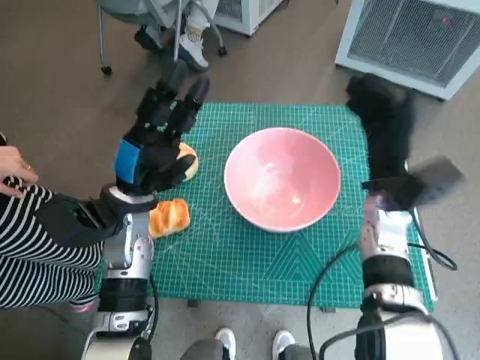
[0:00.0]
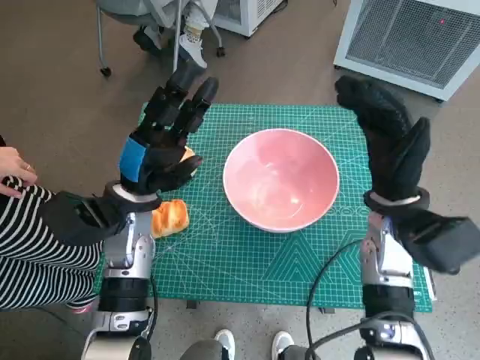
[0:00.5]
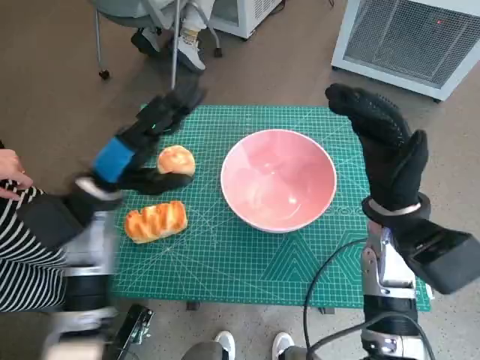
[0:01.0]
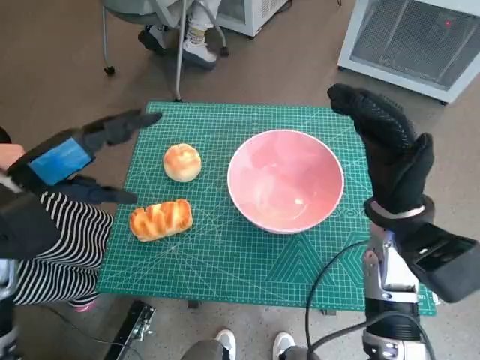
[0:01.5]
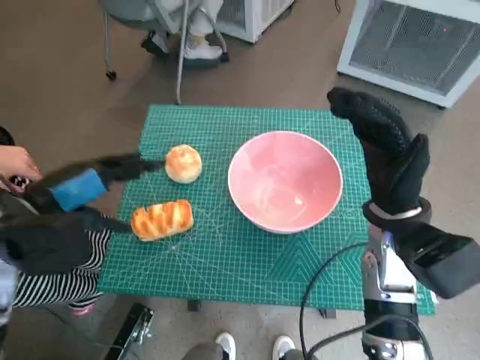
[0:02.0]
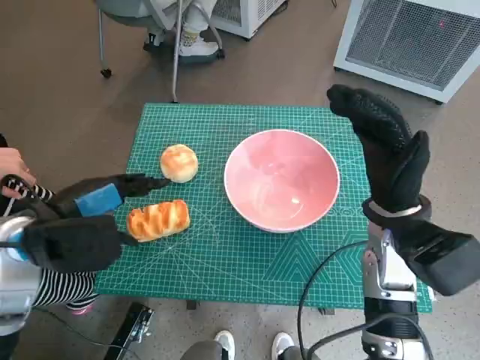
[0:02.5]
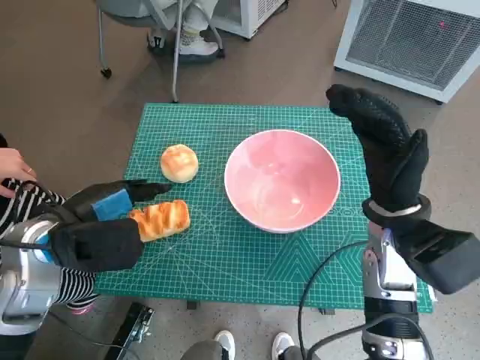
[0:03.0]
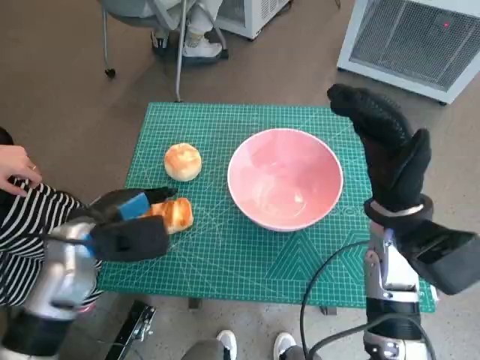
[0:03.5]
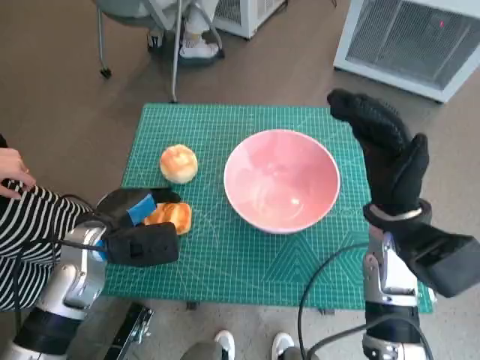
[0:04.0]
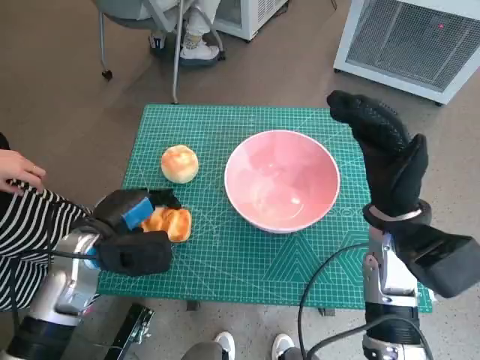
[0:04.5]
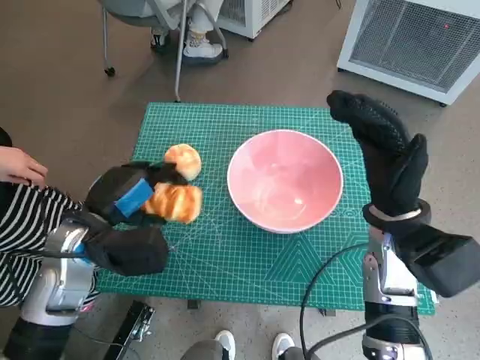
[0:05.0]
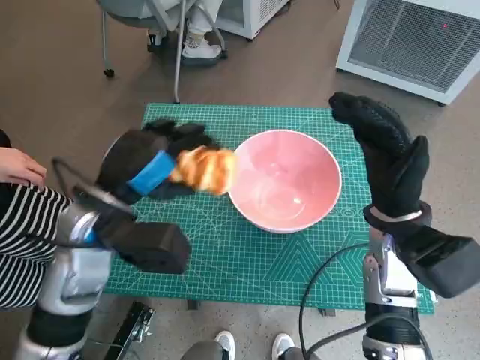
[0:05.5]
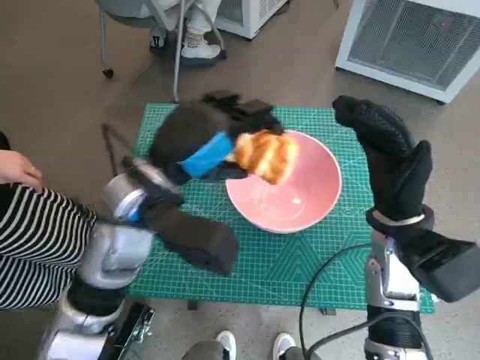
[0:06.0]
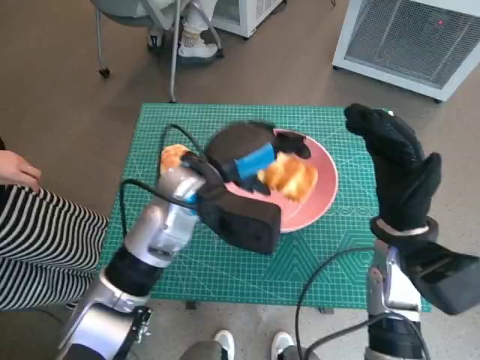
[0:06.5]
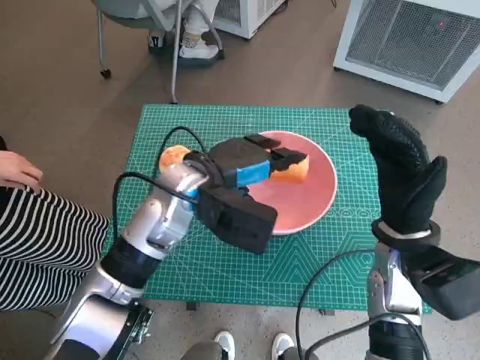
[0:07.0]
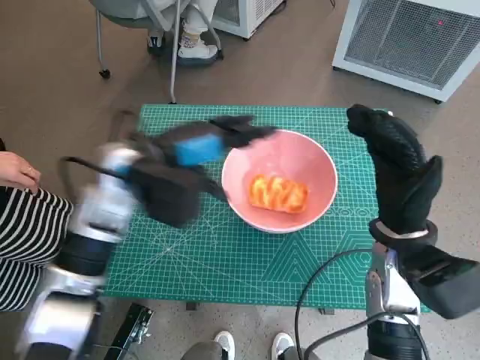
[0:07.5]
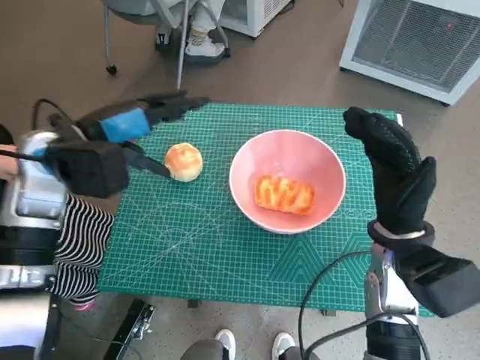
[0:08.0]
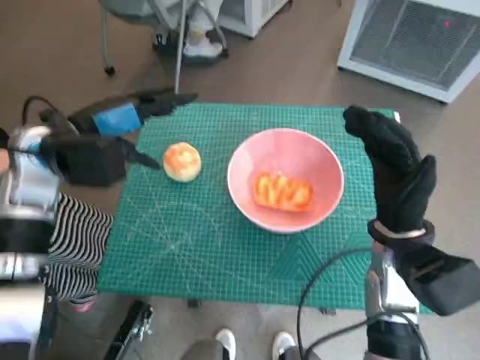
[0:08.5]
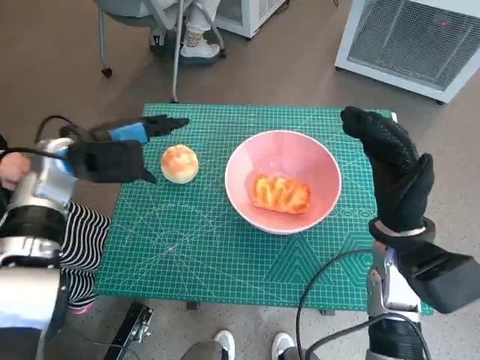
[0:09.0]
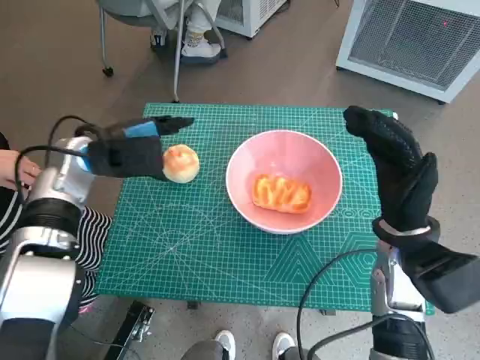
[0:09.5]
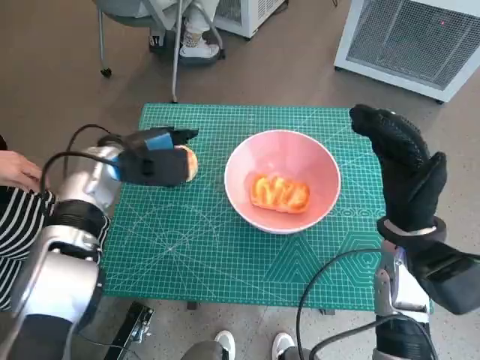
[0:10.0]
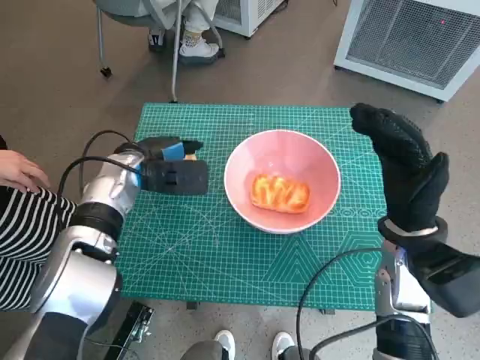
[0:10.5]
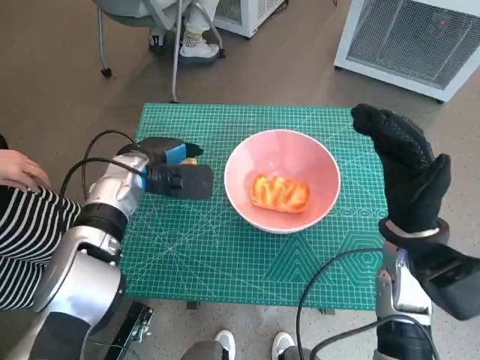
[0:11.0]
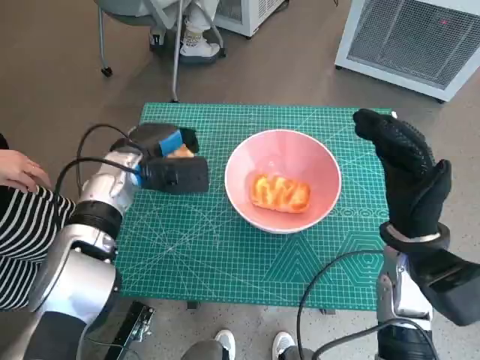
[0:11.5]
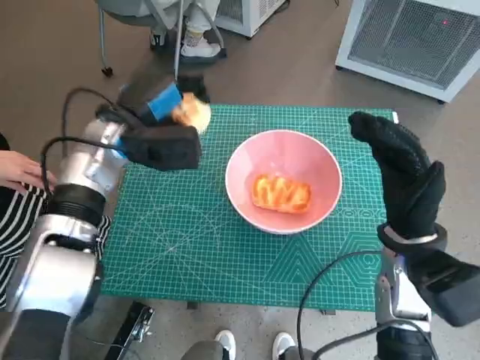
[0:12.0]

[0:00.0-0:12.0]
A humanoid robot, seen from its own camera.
Task of the whole recording: Push the bowl into the center of the table and put the bread into the bowl.
Step, 0:00.0 to 0:04.0: Grasp the long bread with left hand.
Step, 0:04.5 to 0:07.5: Place the long bread in pink bowl with left hand.
Step, 0:08.0 to 0:11.0: Grasp the round bread with left hand.
0:00.0 to 0:02.0: The left hand goes approximately 15 cm upward, to the left and backward; the right hand travels backward by approximately 5 cm.
0:02.0 to 0:04.0: The left hand moves downward, approximately 10 cm.
0:04.0 to 0:06.0: The left hand goes approximately 15 cm upward and to the right.
0:06.0 to 0:08.0: The left hand shifts roughly 10 cm to the left and forward.
0:08.0 to 0:10.0: The left hand moves downward, approximately 5 cm.

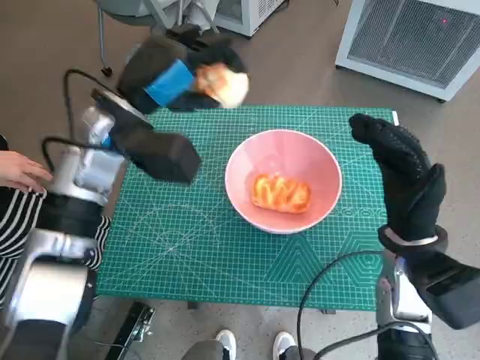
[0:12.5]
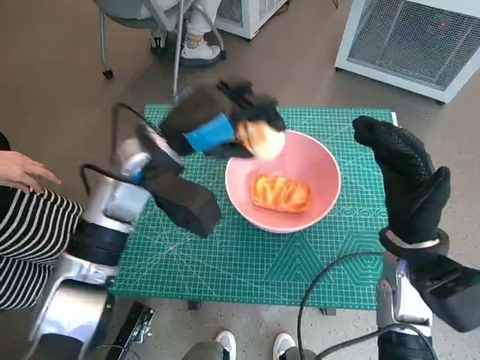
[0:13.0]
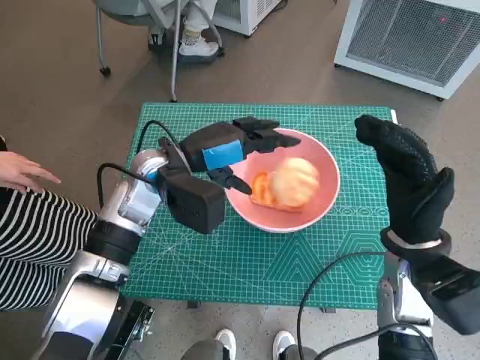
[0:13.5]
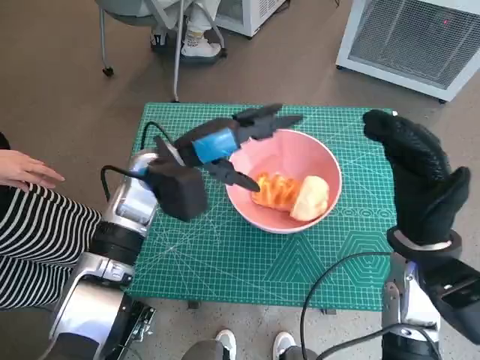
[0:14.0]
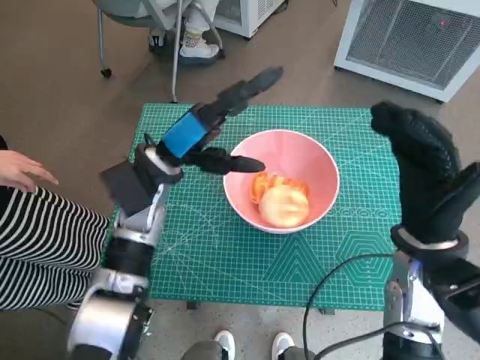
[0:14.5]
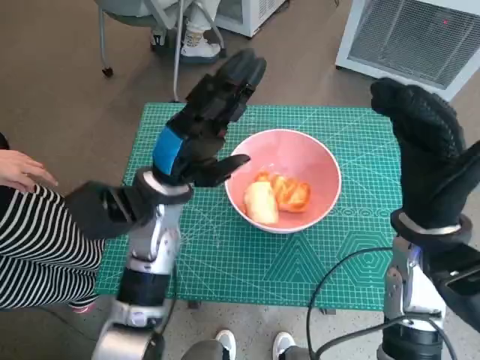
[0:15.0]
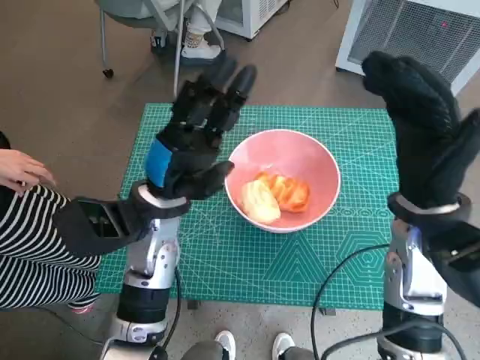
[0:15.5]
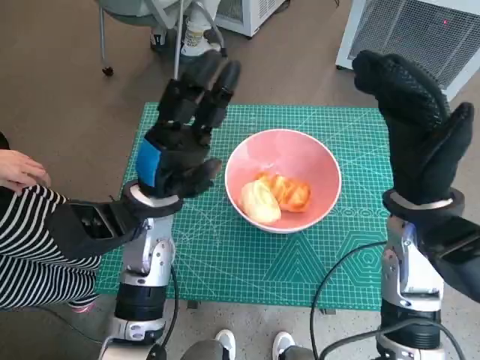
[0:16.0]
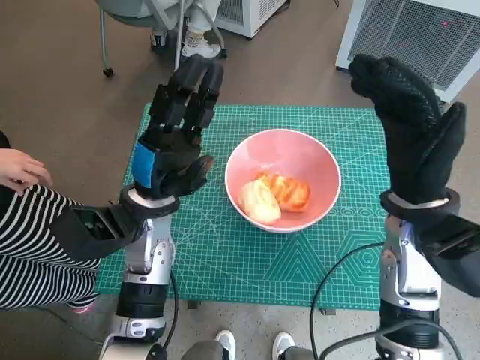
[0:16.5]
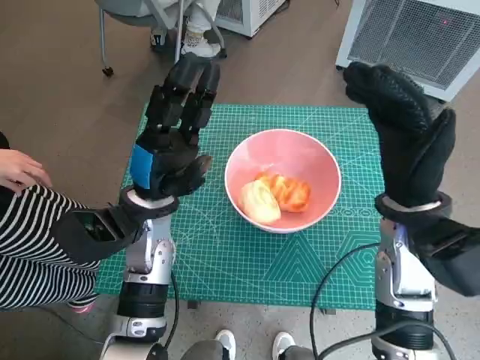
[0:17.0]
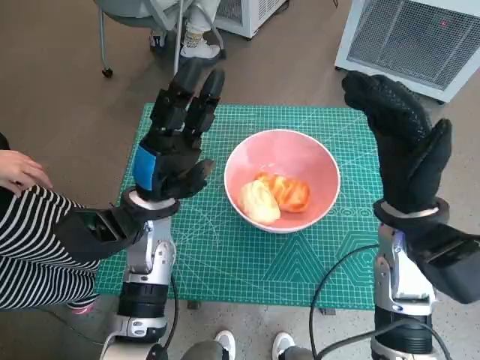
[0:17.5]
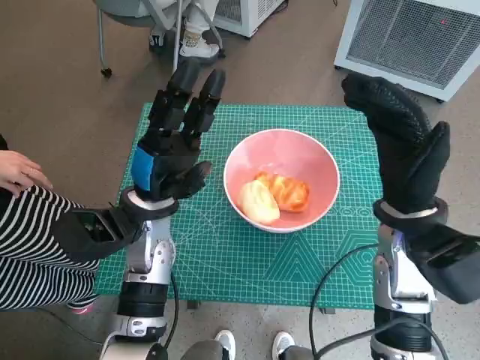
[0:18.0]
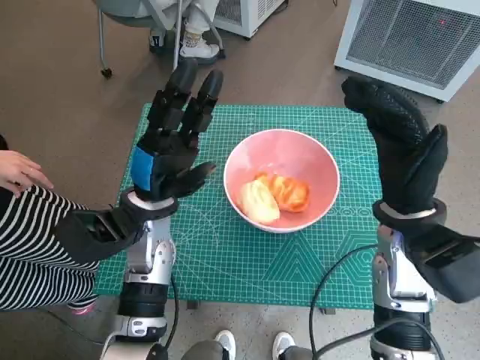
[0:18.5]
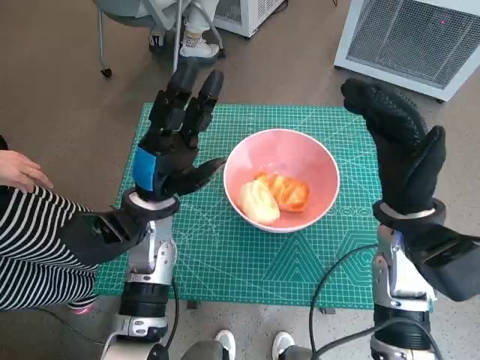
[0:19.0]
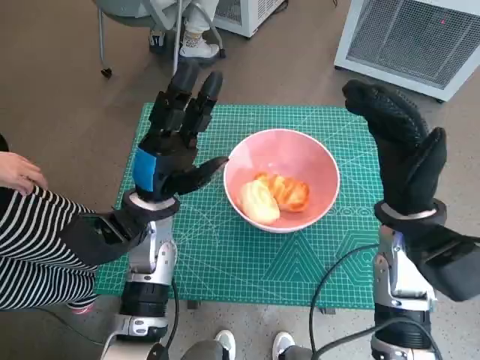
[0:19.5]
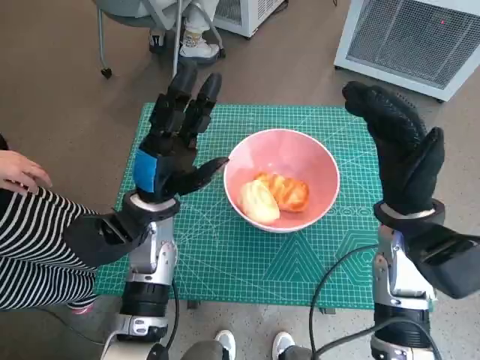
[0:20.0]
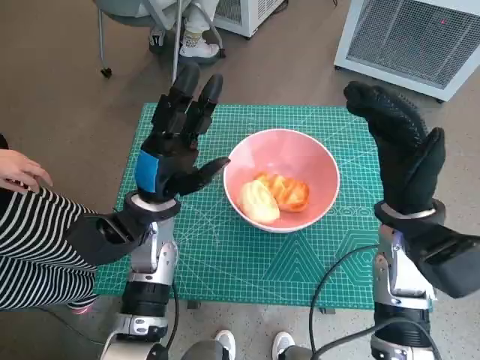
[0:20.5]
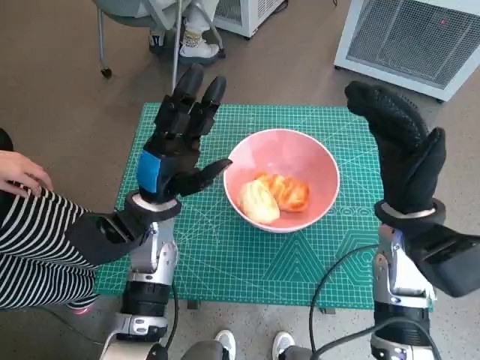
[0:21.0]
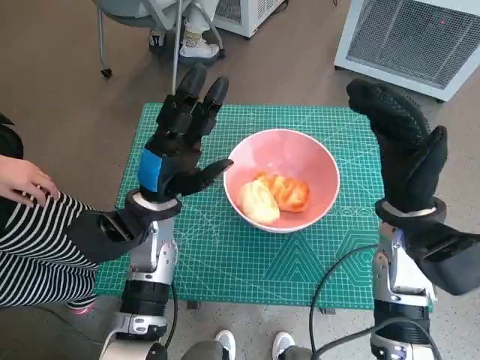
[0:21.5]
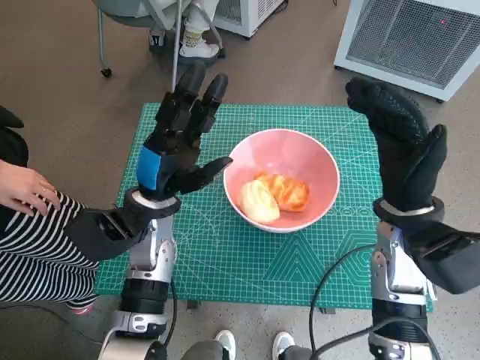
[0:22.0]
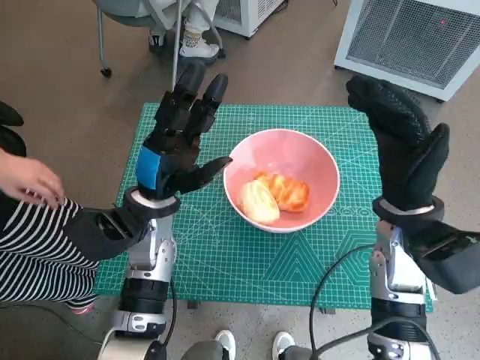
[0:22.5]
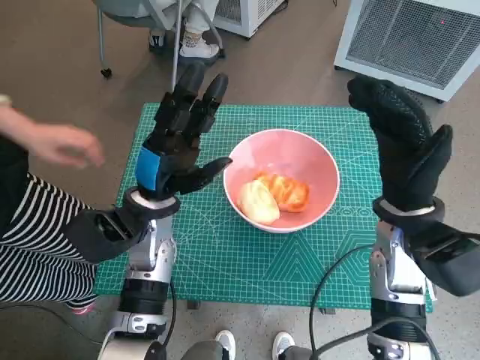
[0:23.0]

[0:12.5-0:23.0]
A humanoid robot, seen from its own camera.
Task of the whole recording: Push the bowl into the center of the table and put the bread into the bowl.
Step, 0:12.5 to 0:14.5: Place the round bread in pink bowl with left hand.
0:12.5 to 0:14.5: The left hand travels downward by about 5 cm.
0:14.5 to 0:16.5: The left hand shifts by about 5 cm.
0:16.5 to 0:19.0: There are only small adjustments of the hands.
0:19.0 to 0:23.0: Both hands stay put.

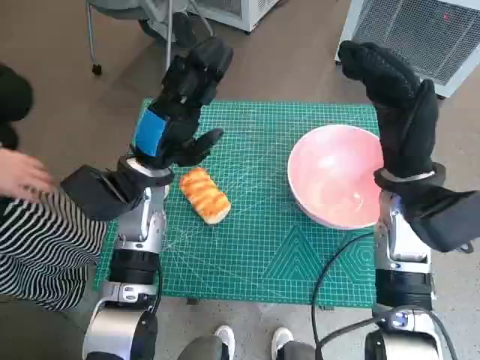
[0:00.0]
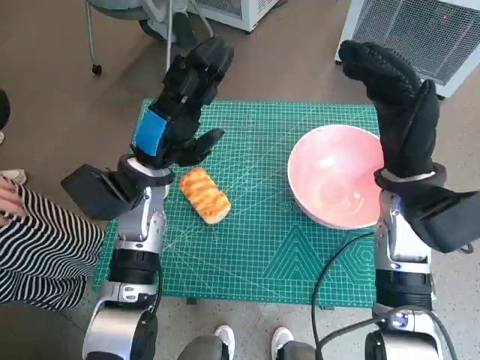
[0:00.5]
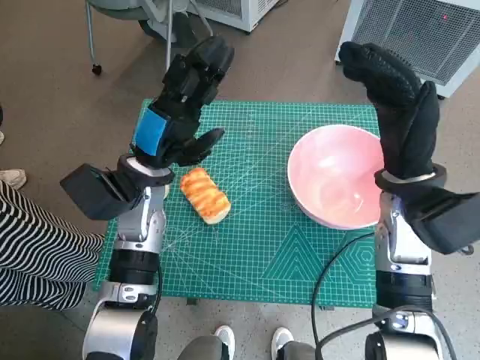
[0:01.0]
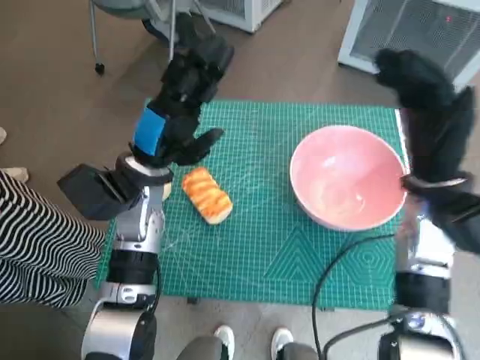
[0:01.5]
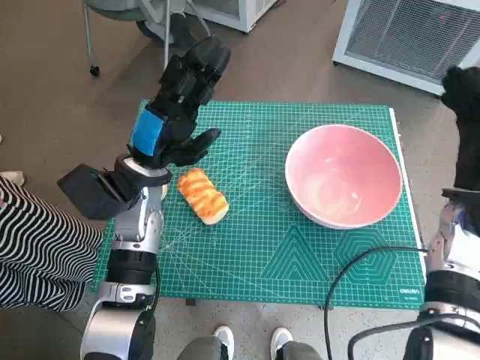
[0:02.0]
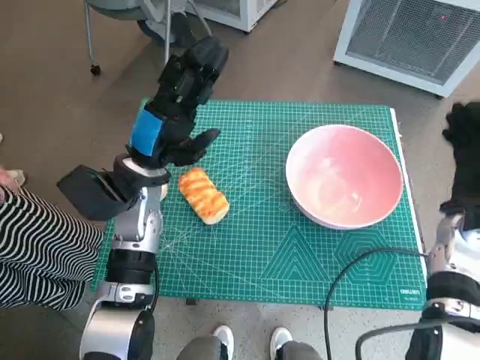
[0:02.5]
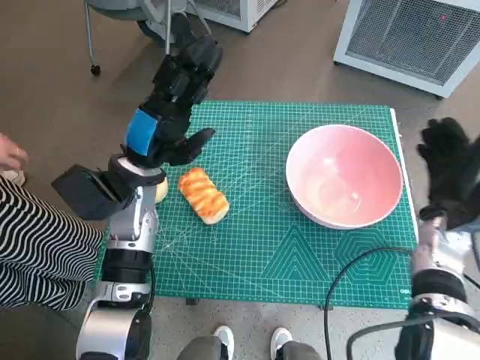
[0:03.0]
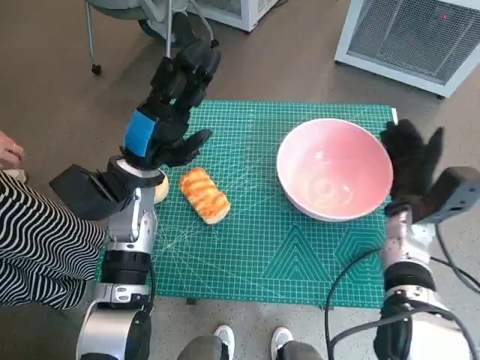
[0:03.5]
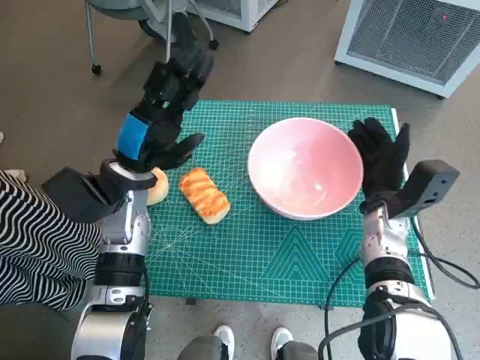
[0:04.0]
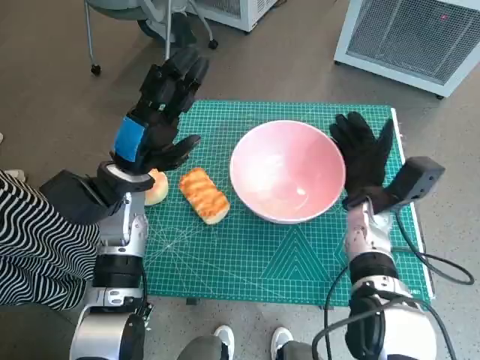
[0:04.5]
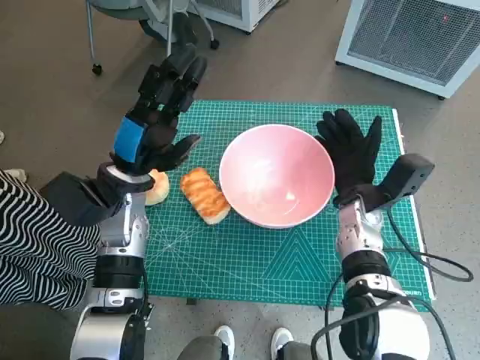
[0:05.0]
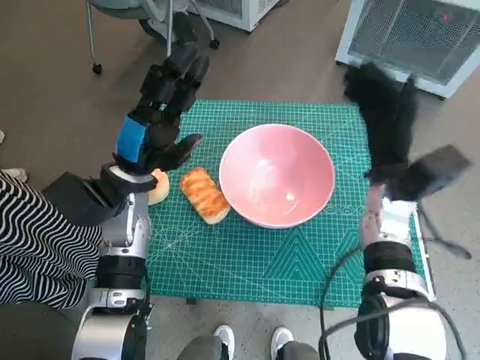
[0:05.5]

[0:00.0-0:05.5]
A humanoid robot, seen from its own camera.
Task of the whole recording: Push the bowl into the center of the table and put the bread into the bowl.
Step, 0:00.0 to 0:05.0: Move the pink bowl to the center of table with right hand.
0:02.0 to 0:03.5: The right hand travels downward by roughly 5 cm.
0:03.5 to 0:05.5: The right hand moves upward, some 5 cm.
